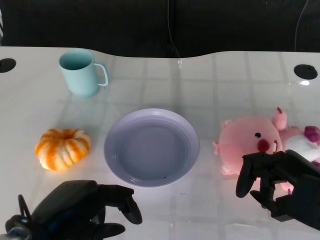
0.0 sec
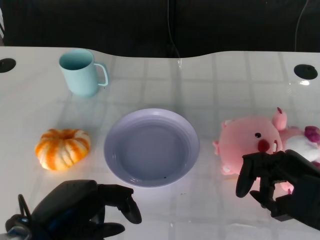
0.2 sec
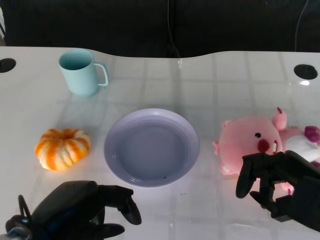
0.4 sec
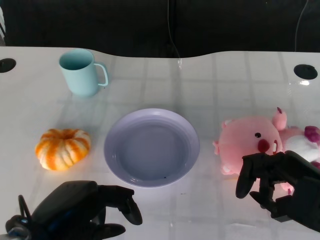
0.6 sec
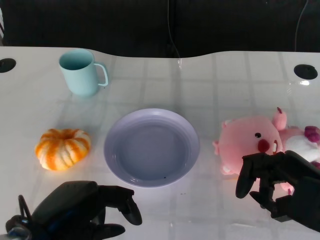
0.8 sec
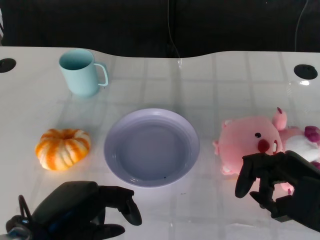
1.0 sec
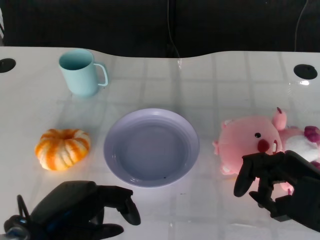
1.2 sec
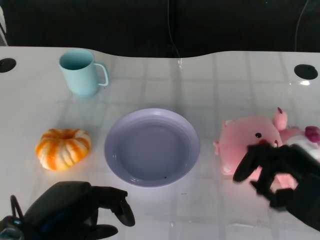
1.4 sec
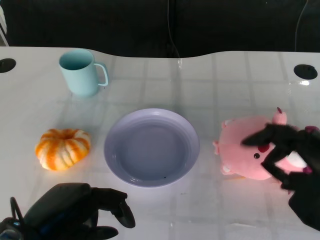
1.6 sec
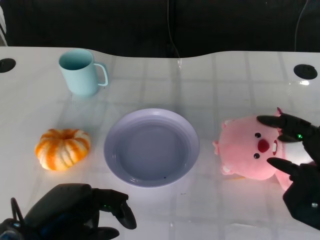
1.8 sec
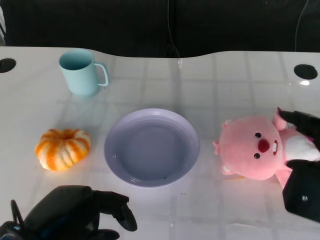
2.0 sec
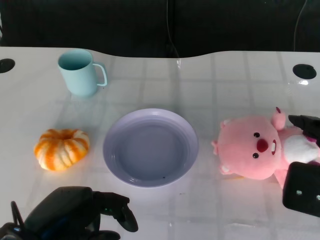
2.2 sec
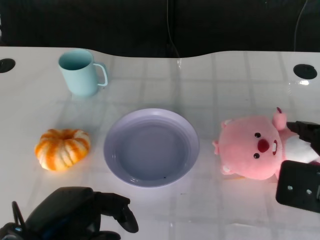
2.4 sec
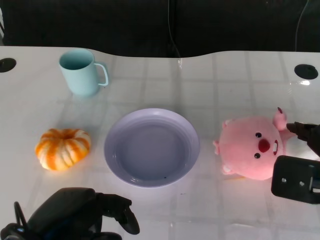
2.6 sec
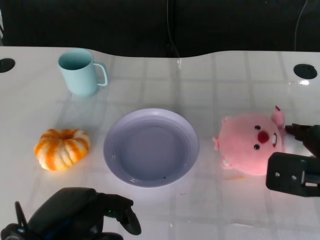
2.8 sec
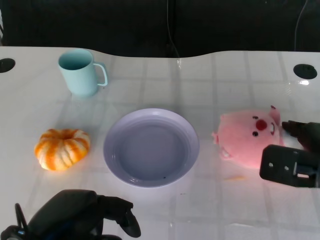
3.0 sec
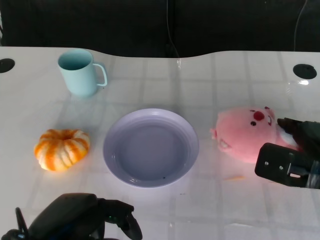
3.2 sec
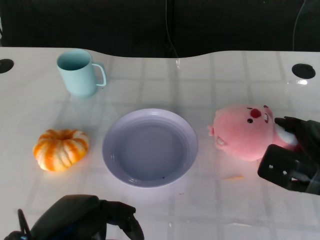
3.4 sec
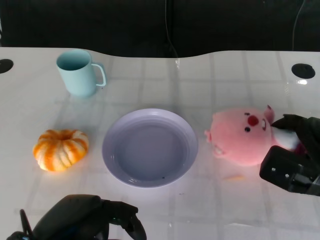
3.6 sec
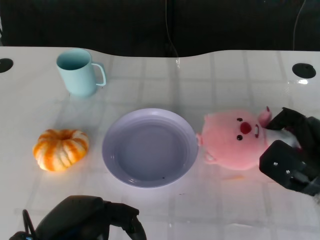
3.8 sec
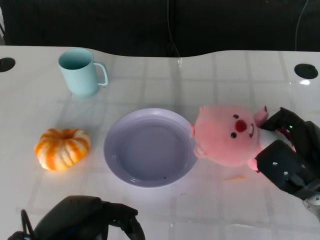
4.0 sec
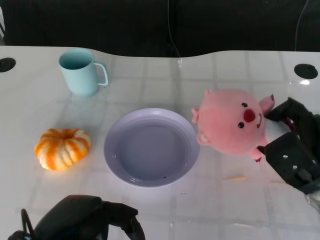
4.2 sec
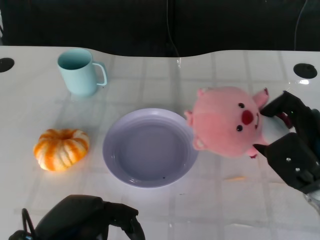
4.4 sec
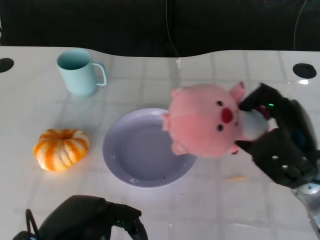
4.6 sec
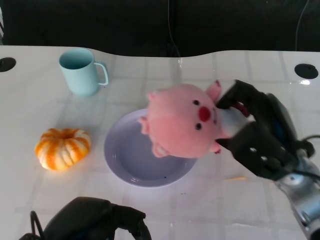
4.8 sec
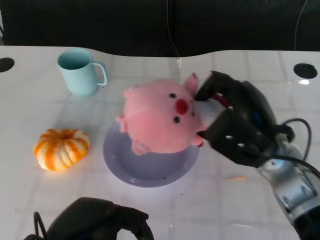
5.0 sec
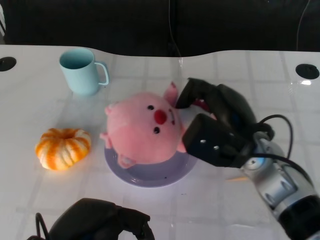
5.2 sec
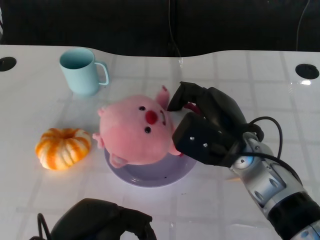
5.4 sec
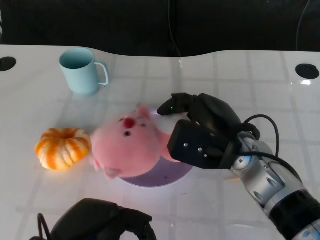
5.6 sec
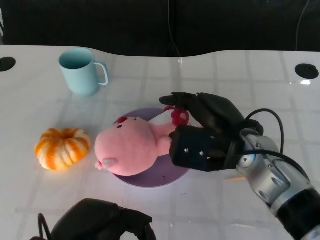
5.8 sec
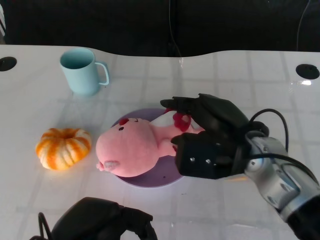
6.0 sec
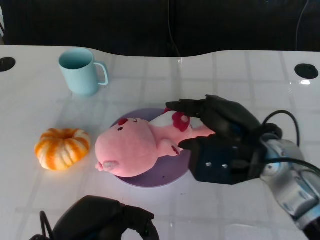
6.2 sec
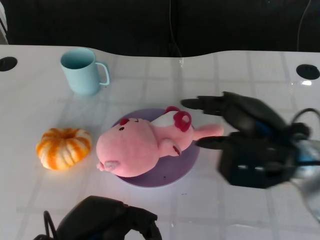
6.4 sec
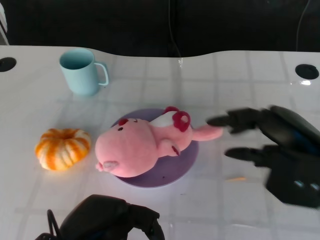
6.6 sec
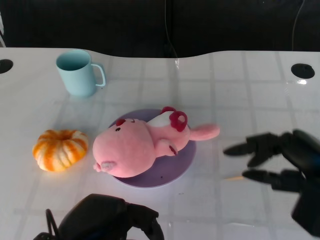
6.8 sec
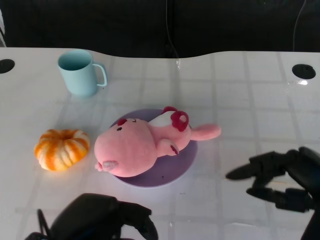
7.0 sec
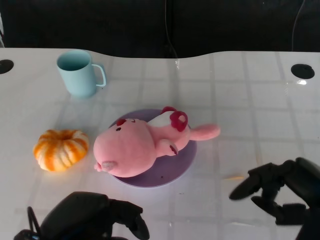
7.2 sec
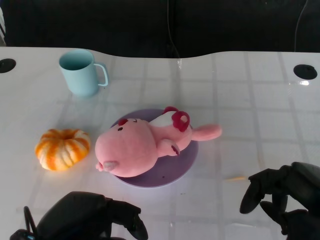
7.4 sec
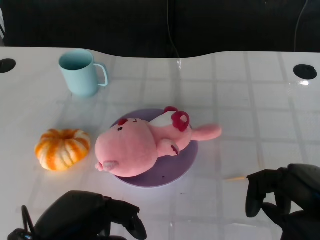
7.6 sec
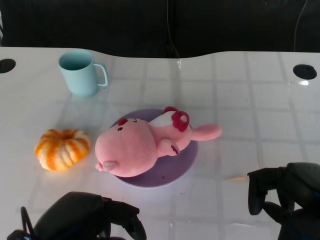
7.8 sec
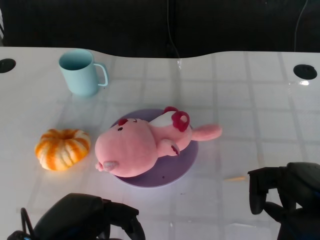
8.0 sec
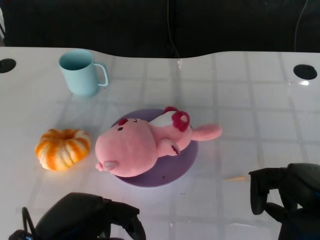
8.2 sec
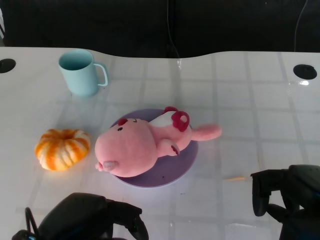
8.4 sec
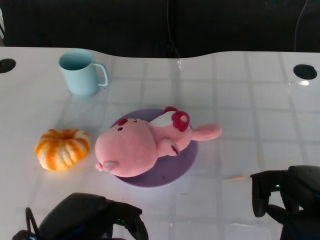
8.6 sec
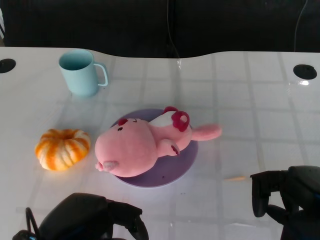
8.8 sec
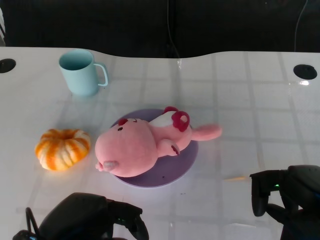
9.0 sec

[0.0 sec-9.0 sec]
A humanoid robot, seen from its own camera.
Task of the whole recording: Pick up the doll on the other side of the plate and place it into the plate.
Step, 1.2 sec to 4.6 sec: Grasp the pink doll with the right gripper.
Step, 5.0 sec to 6.4 sec: Place the pink doll into the plate with the right gripper.
1.6 sec to 3.0 sec: The right hand heads forward, covering some 5 cm.
3.0 sec to 4.4 sec: The right hand shifts by some 5 cm.
4.4 sec to 6.0 sec: The right hand heads to the left and upward, covering some 10 cm.
6.0 sec to 7.6 sec: The right hand travels to the right and backward by roughly 15 cm.
7.6 sec to 9.0 sec: The hands move only a little.

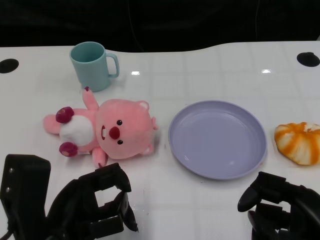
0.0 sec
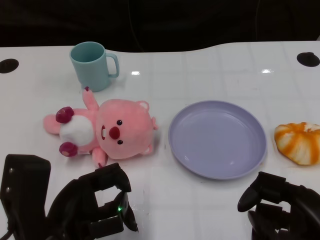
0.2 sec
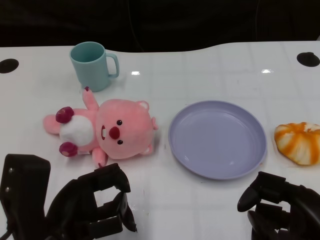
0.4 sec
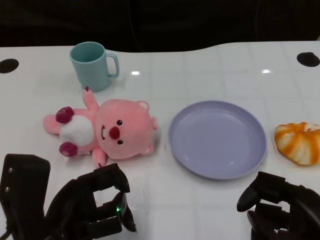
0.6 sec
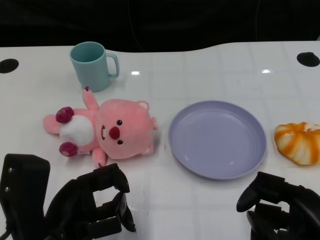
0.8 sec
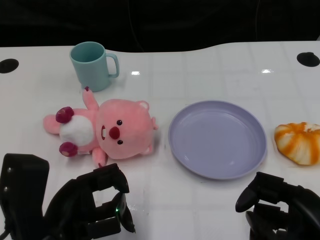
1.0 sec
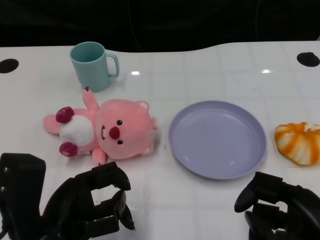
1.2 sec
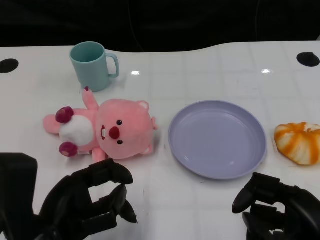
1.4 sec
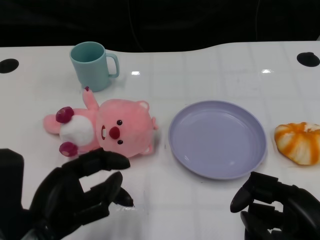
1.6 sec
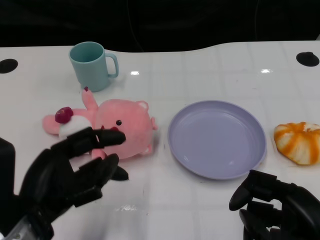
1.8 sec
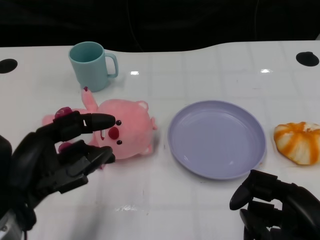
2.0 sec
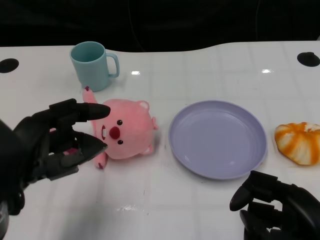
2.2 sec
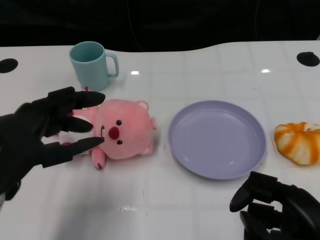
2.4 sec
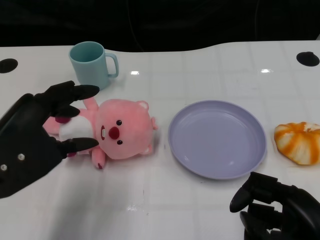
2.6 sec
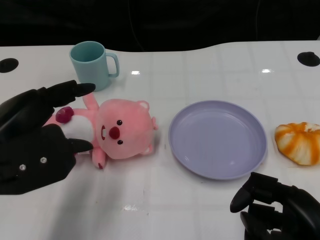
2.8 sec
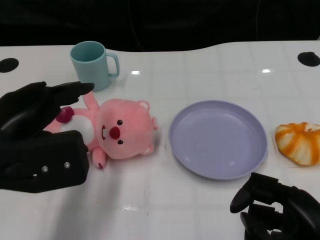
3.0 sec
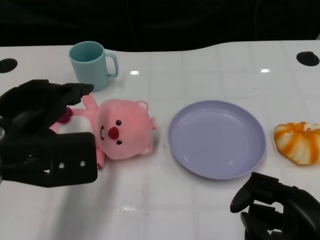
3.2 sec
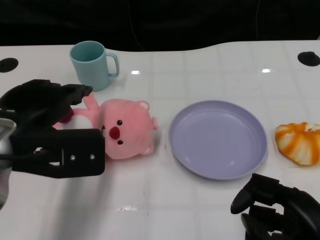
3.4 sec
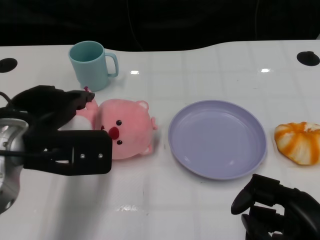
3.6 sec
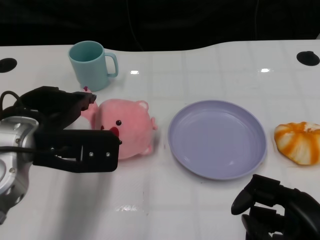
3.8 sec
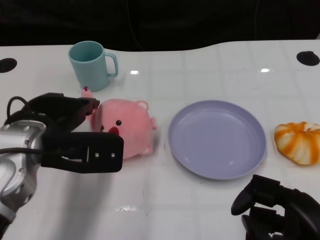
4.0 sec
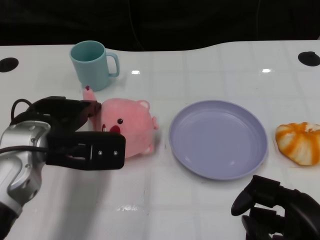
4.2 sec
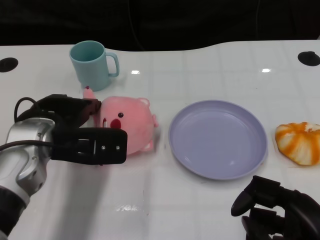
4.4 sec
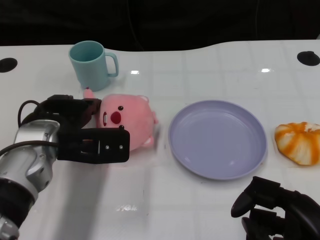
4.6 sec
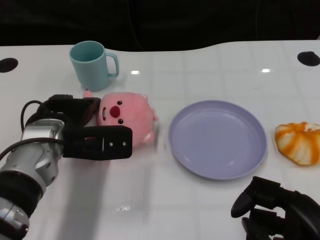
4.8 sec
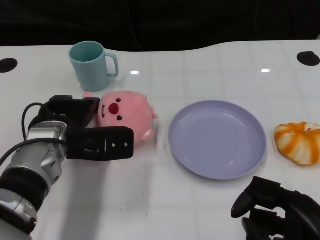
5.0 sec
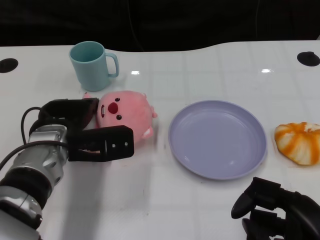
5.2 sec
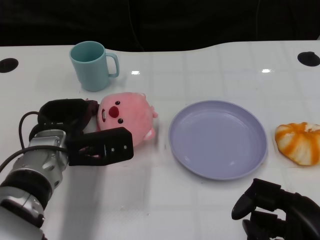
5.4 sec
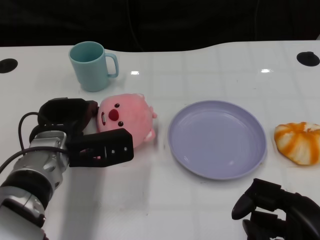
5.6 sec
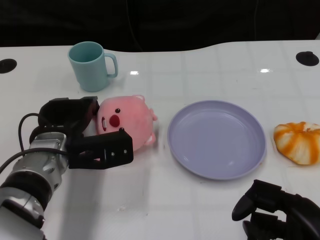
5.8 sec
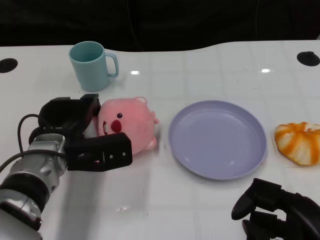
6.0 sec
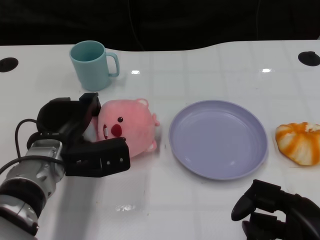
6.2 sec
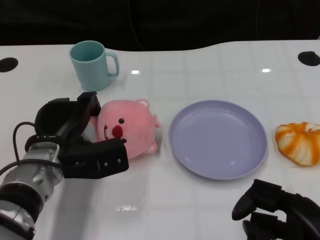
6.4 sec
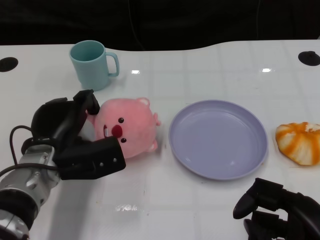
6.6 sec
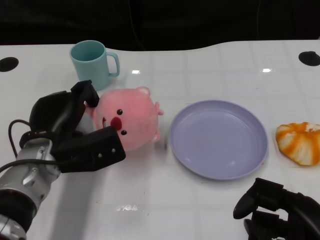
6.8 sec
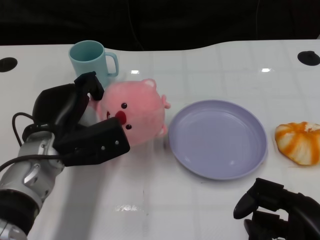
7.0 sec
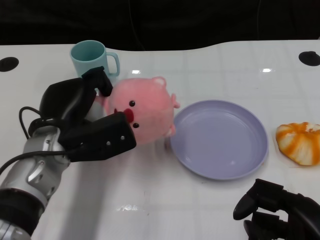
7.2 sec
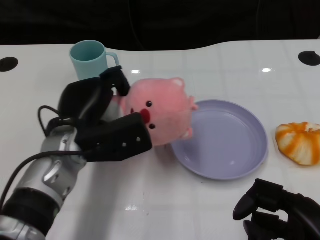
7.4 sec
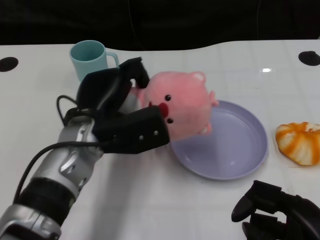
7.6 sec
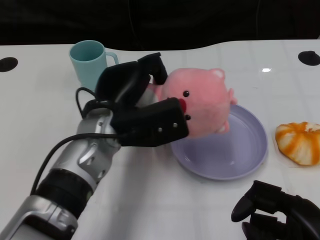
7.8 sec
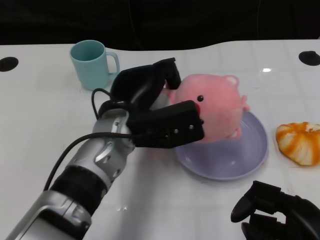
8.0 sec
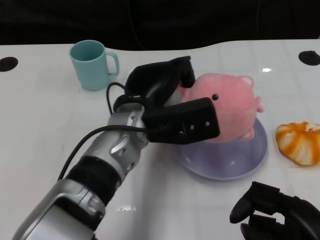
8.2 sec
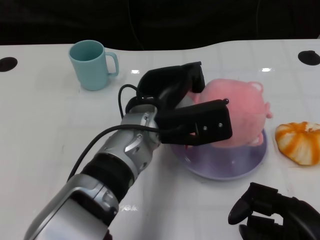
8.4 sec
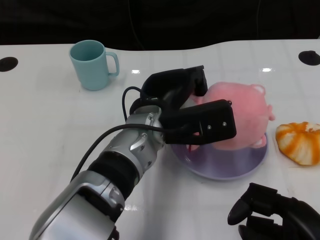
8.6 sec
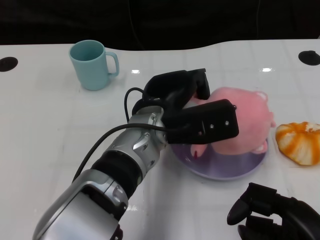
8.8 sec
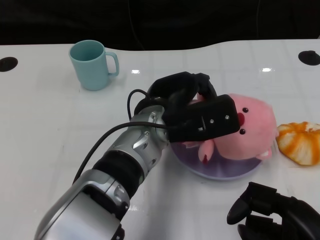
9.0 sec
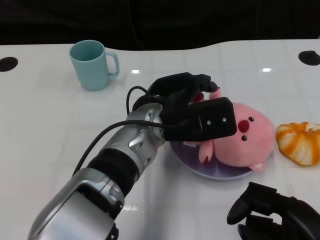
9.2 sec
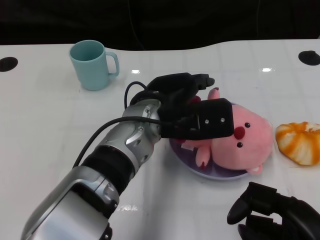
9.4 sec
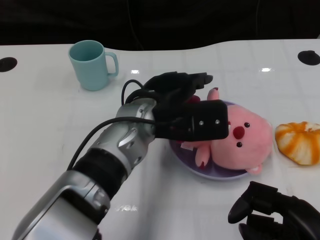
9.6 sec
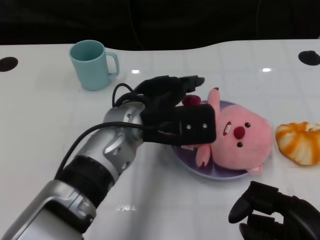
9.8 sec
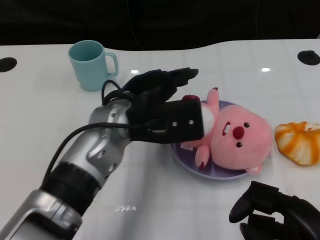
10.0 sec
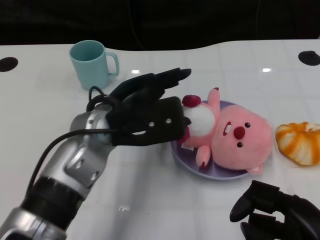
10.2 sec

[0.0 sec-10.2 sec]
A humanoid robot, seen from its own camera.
Task of the whole recording: Pick up the doll on one side of the plate and place it into the plate.
Step, 1.2 sec to 6.8 sec: Grasp the pink doll with the left gripper.
Step, 7.0 sec to 10.0 sec: Place the pink doll into the plate with the left gripper.
1.4 sec to 3.0 sec: The left hand is displaced upward and forward by approximately 10 cm.
3.0 sec to 4.4 sec: The left hand shifts roughly 10 cm forward and downward.
4.4 sec to 5.8 sec: The left hand is displaced downward by approximately 5 cm.
7.2 sec to 8.8 sec: The left hand shifts roughly 15 cm to the right.
8.8 sec to 10.2 sec: The left hand moves to the left, roughly 5 cm.

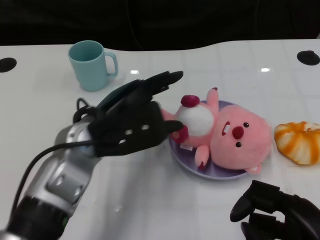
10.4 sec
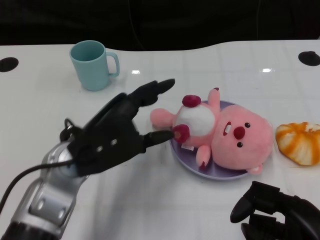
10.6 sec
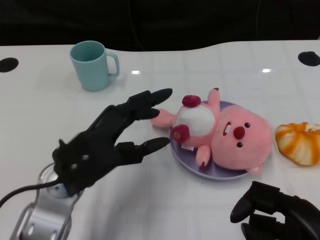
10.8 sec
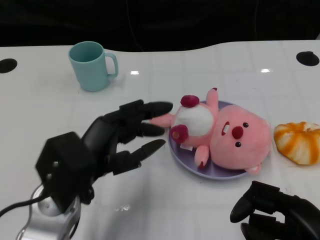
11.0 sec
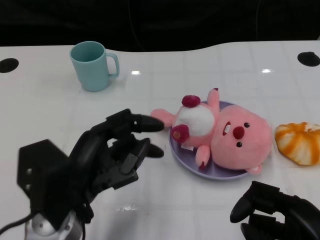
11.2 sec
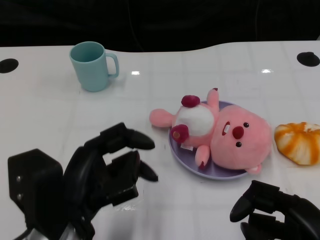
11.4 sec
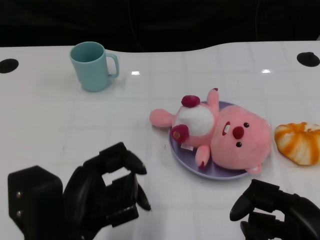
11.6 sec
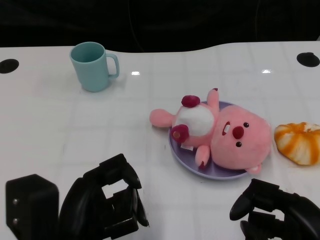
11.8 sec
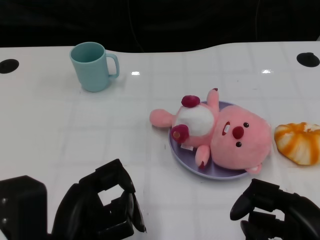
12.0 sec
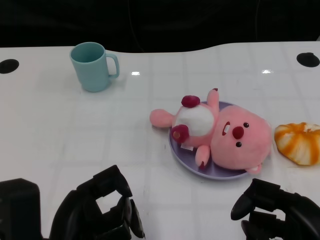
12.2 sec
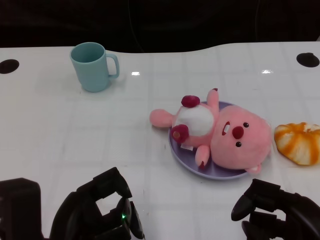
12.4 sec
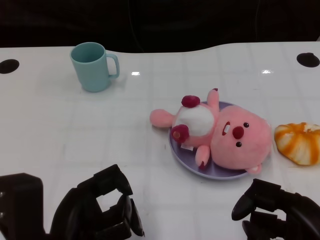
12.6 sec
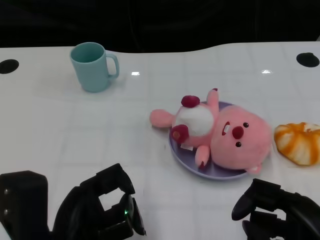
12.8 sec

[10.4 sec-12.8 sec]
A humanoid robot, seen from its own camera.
Task of the whole recording: Pick up the doll on one side of the plate and place it into the plate.
10.4 sec to 11.6 sec: The left hand shifts about 15 cm backward.
11.6 sec to 12.8 sec: The hands move only a little.
